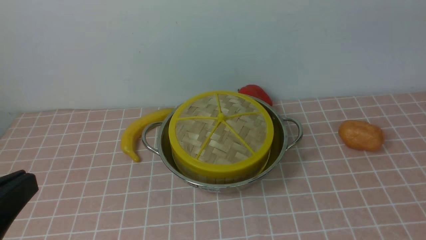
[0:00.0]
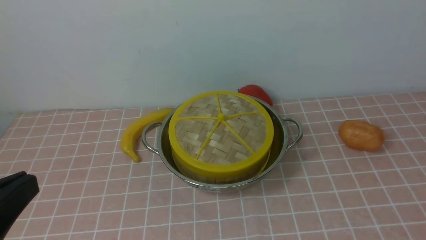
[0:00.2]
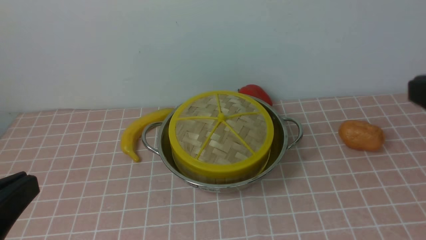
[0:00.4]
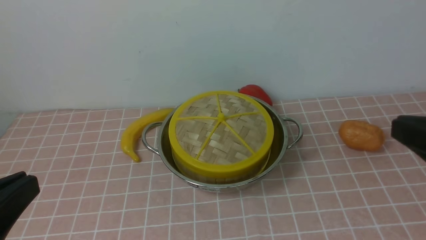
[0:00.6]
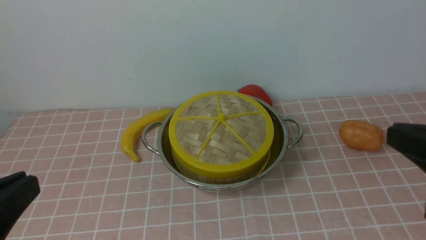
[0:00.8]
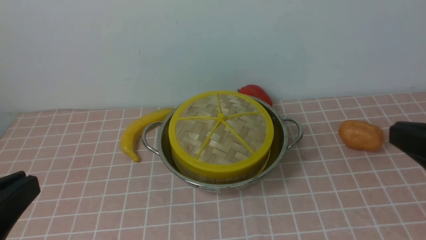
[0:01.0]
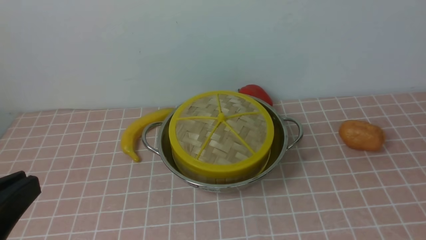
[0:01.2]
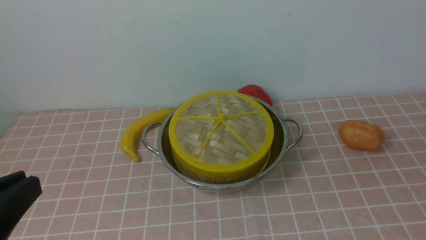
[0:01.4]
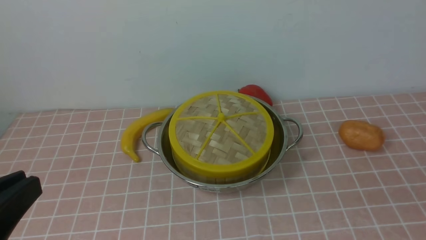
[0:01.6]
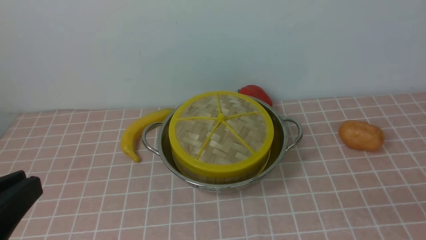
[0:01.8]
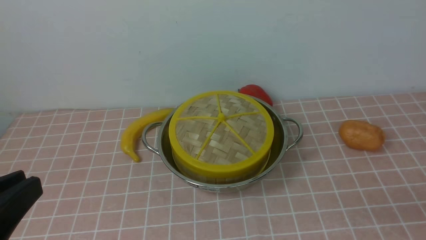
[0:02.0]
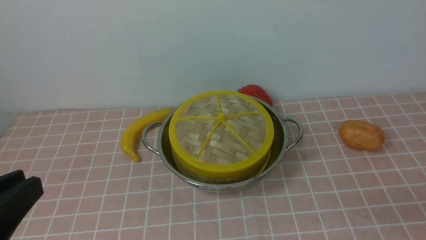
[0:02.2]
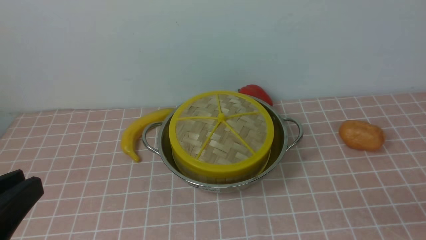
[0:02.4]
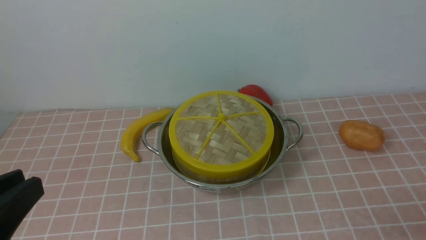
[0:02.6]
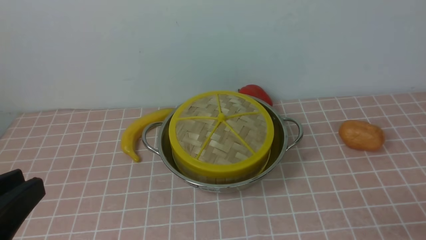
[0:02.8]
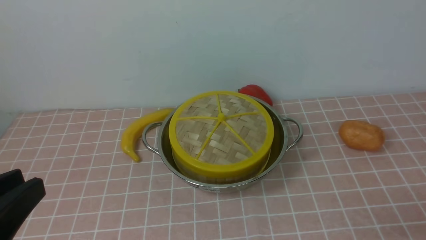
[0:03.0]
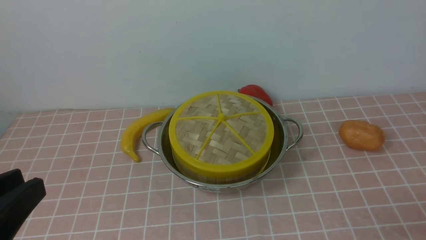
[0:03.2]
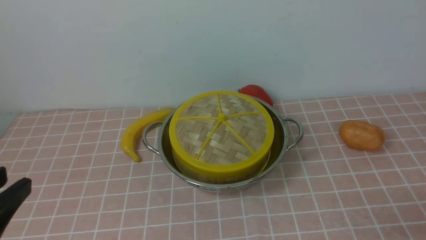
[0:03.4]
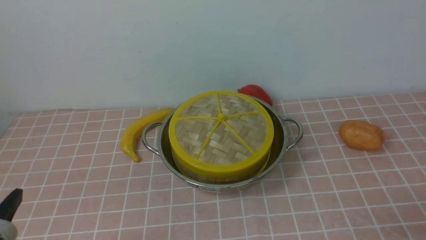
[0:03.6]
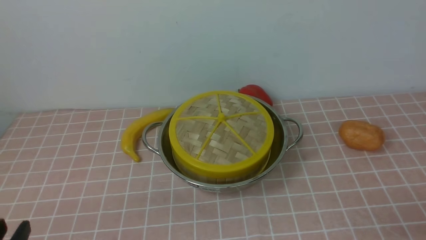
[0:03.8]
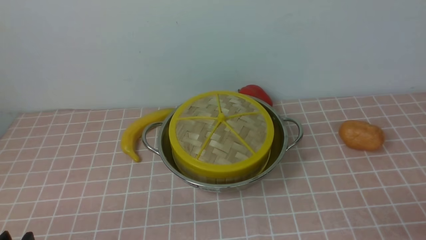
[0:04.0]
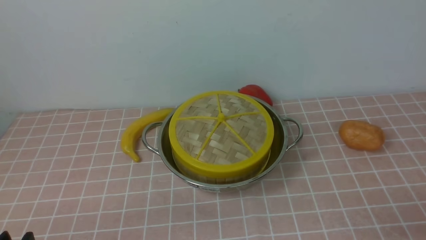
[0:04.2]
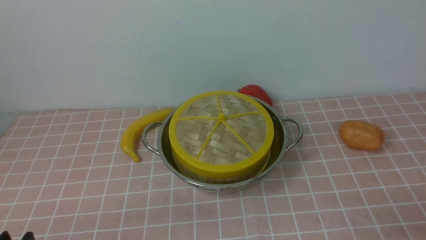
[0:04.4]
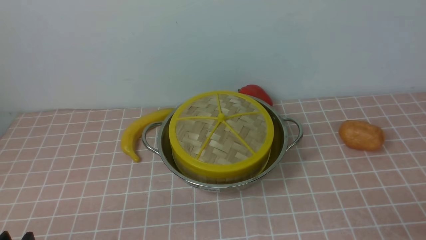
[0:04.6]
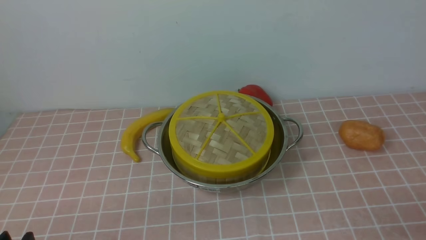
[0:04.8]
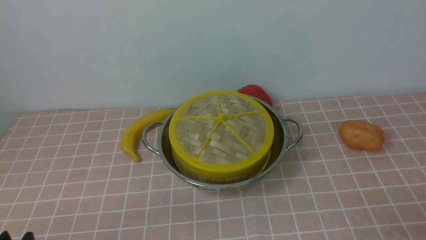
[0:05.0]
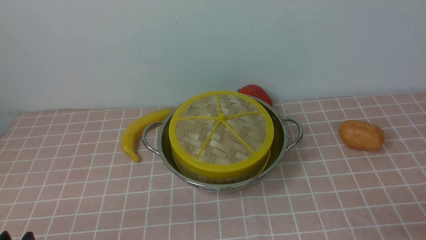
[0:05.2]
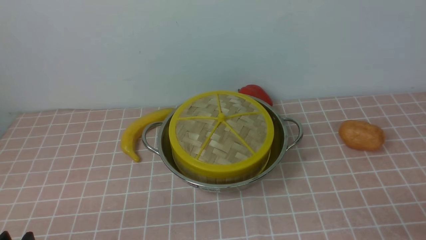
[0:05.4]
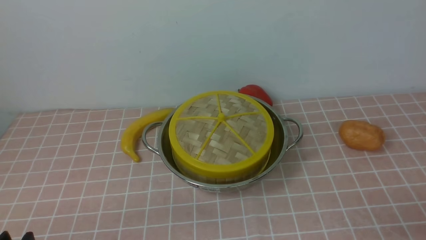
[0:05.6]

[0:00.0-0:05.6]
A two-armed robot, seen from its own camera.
Task of the whole recording: place the steamer in the pot on the pink tablecloth, and put the lid on the steamer.
0:02.8 to 0:04.2: The left gripper goes roughly 15 cm downward.
0:04.2 to 0:05.6: Neither gripper changes place.
